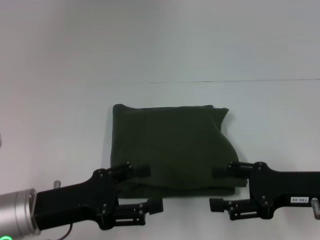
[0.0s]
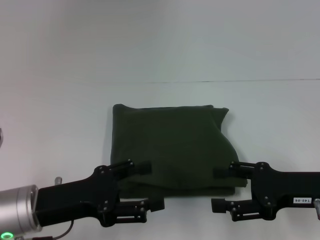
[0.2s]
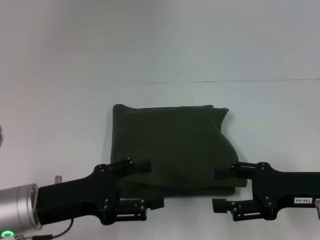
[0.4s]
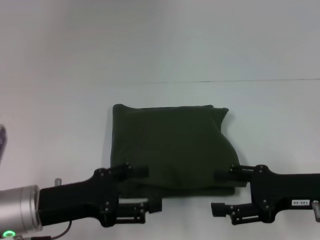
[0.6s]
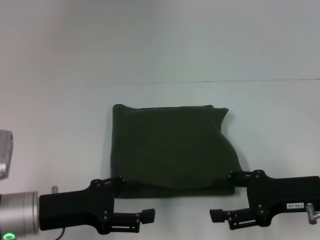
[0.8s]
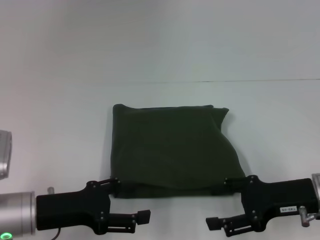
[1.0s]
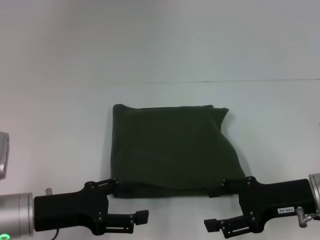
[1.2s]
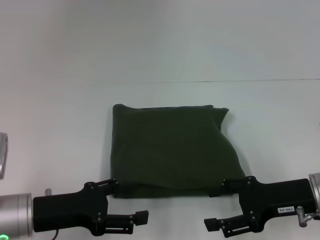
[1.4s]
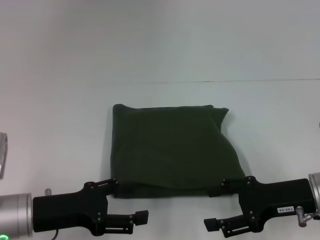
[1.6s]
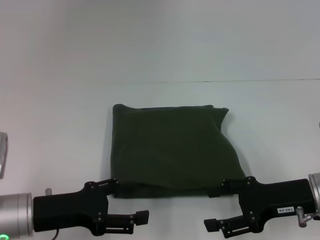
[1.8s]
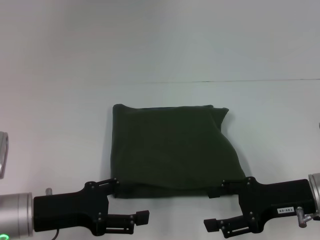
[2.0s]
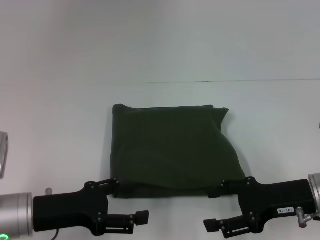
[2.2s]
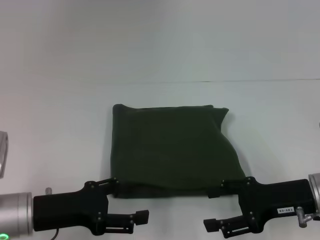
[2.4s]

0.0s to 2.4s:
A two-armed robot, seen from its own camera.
0.0s to 1.2s: There are only small adjustments of the grippers.
1.2s to 2.4s: The two grippers keep their place.

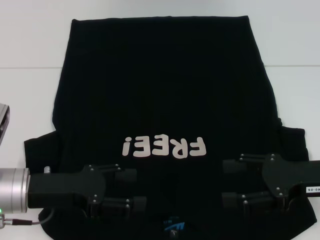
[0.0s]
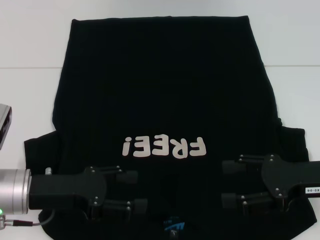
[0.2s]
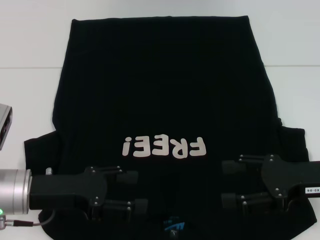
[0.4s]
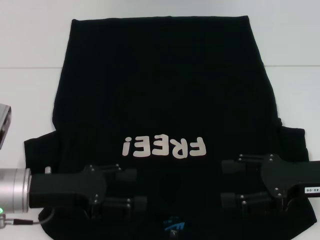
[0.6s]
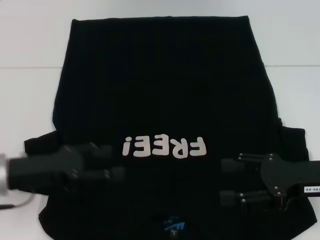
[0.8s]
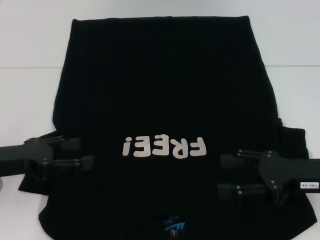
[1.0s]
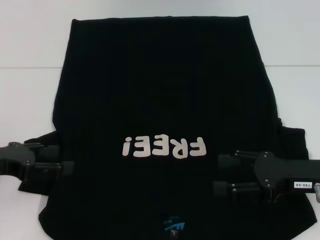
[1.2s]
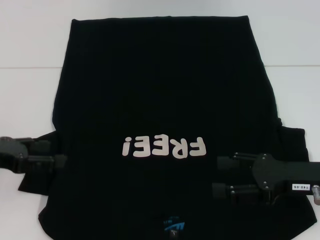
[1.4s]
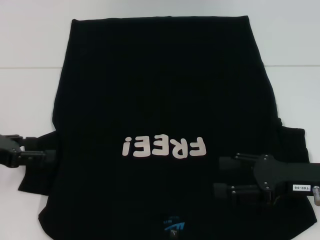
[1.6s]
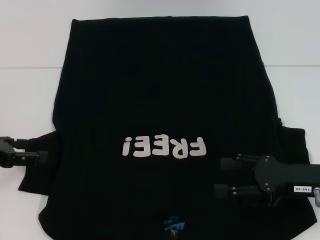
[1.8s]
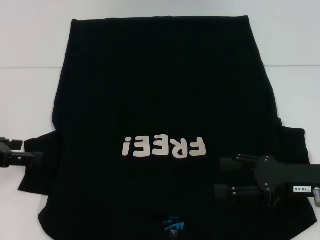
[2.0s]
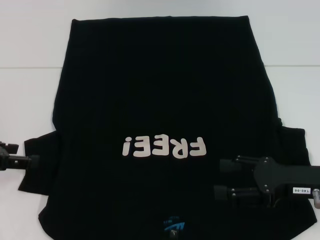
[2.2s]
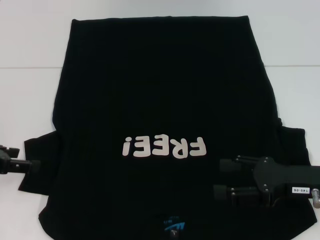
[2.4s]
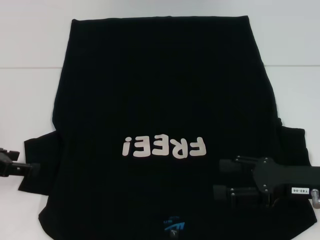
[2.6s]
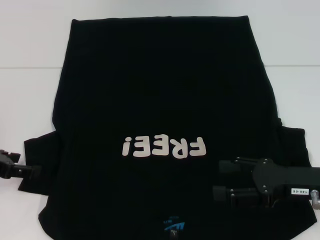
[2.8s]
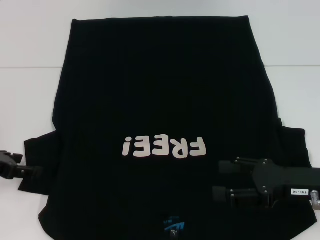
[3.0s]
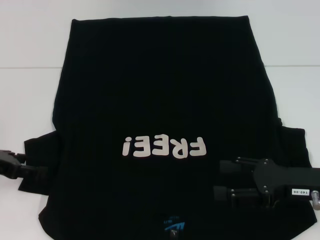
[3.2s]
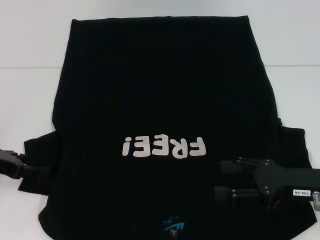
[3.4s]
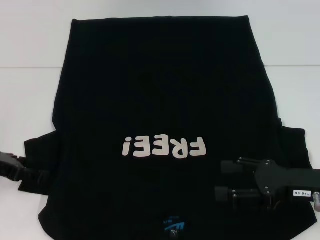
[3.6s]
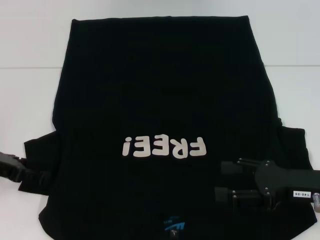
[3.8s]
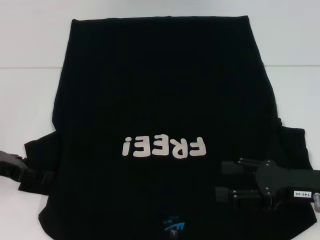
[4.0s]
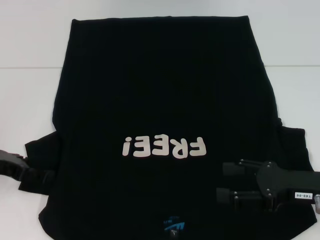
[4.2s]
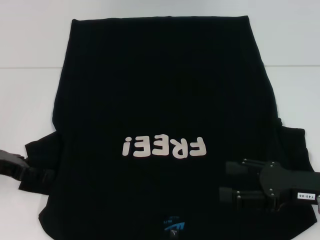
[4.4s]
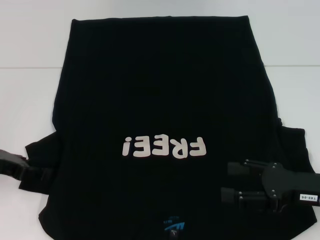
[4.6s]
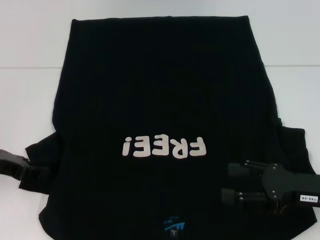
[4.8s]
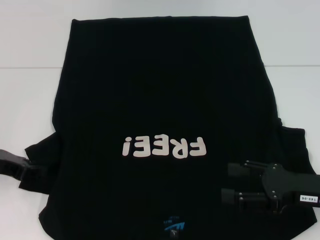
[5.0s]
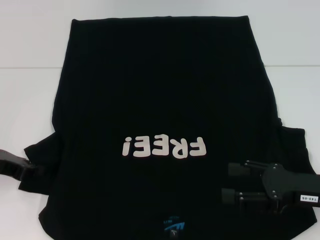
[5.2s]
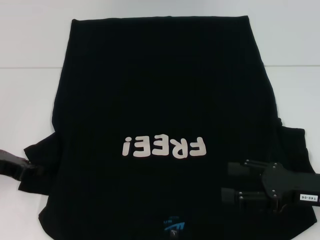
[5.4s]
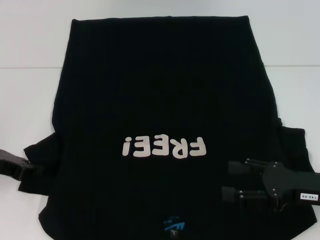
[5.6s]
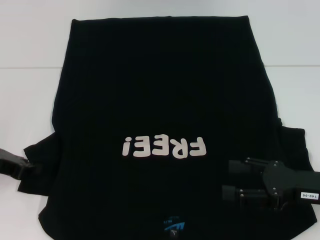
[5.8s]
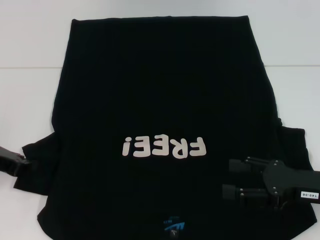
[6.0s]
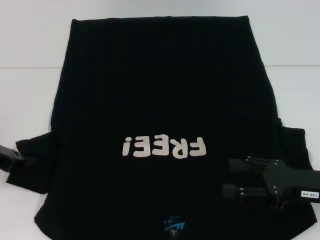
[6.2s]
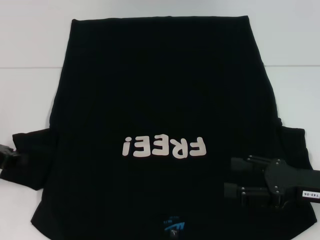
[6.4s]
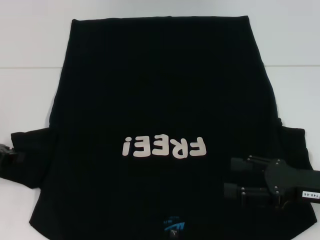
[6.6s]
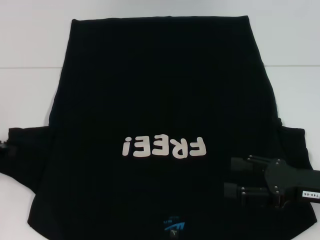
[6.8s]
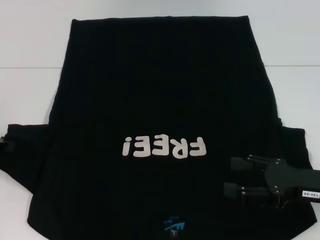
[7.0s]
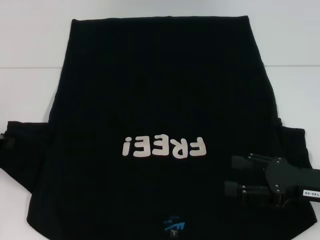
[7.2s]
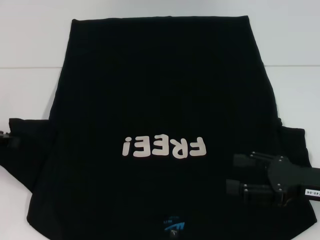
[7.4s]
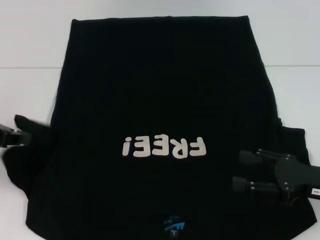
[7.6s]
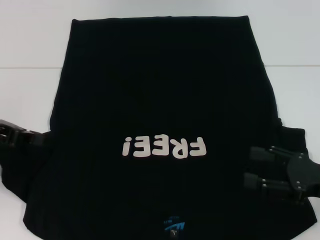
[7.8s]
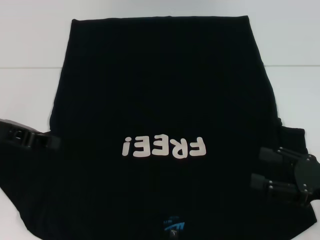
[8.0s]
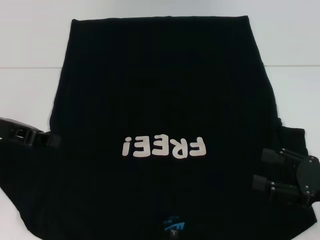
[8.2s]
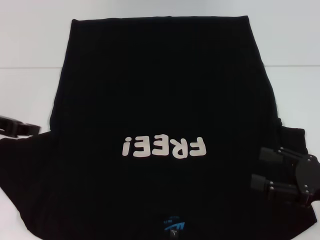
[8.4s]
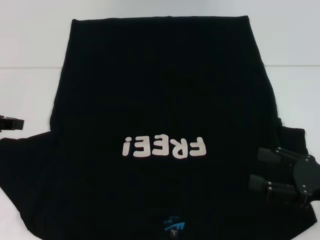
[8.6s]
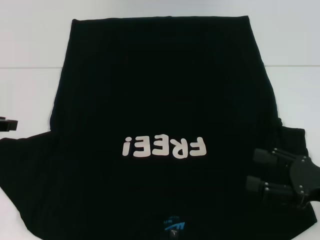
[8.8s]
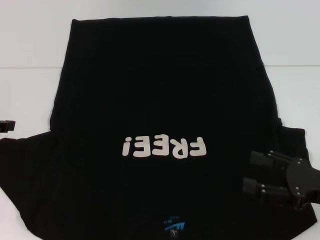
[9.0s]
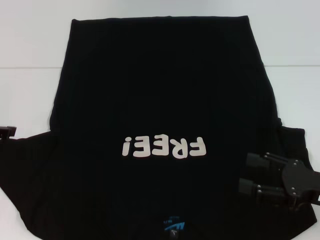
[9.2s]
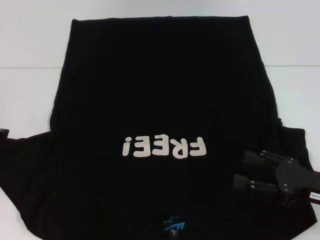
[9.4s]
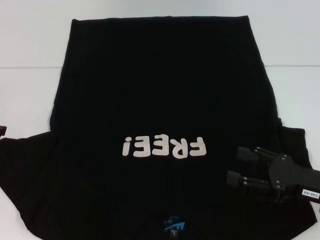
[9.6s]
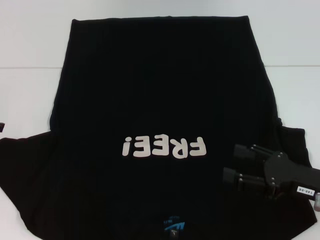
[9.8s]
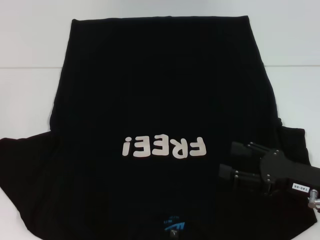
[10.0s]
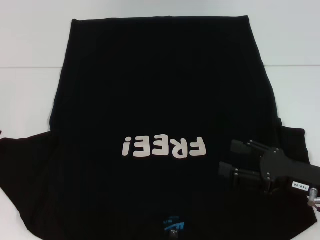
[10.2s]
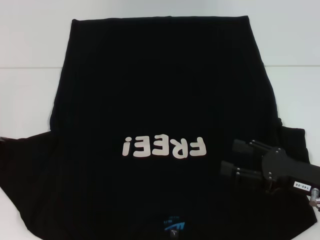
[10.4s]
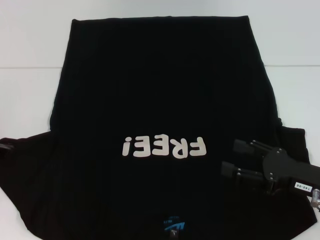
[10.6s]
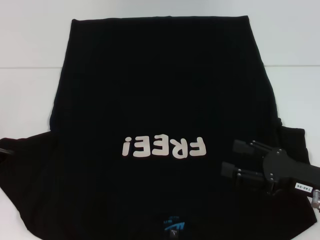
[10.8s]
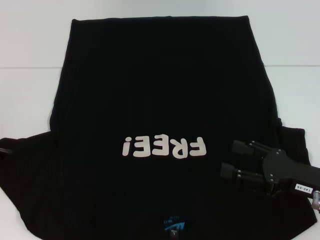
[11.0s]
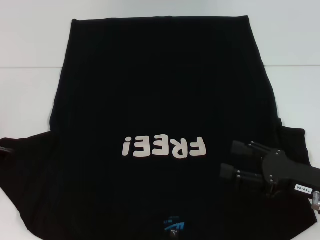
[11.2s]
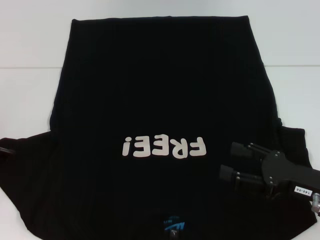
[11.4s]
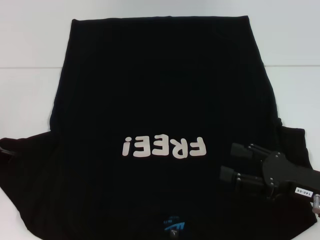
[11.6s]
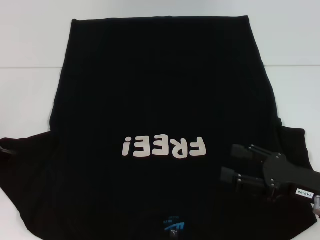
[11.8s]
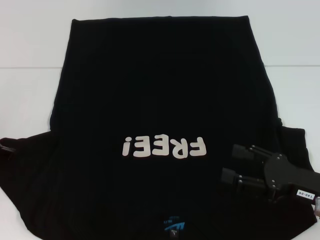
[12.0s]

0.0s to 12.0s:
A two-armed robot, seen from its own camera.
0.0s to 1.6s: The left gripper shifts some 10 cm to the left.
1.6s to 4.4s: The grippers move only a little.
4.4s to 6.0s: The left gripper closes.
6.0s to 7.6s: The left gripper heads upward, covering about 10 cm.
7.6s to 9.0s: The grippers move only a little.
10.4s to 12.0s: There are only small adjustments of the grippers.

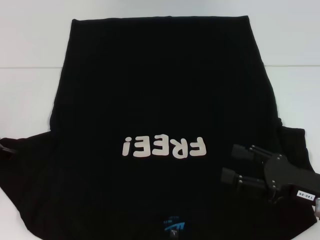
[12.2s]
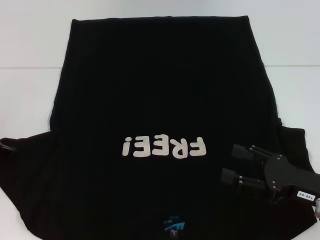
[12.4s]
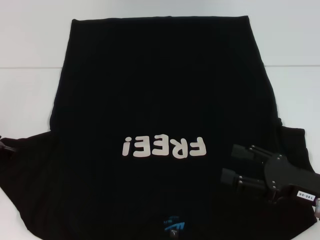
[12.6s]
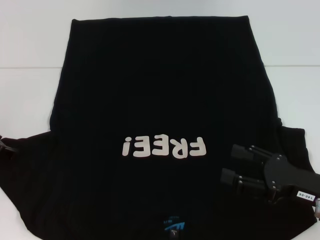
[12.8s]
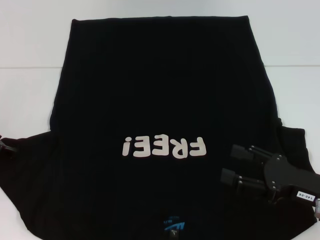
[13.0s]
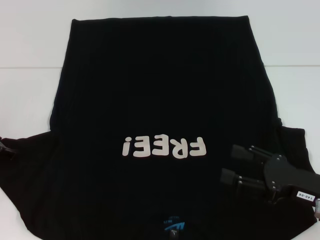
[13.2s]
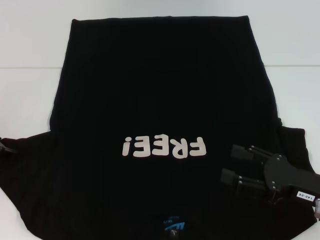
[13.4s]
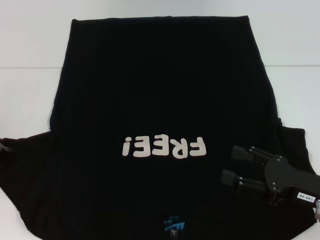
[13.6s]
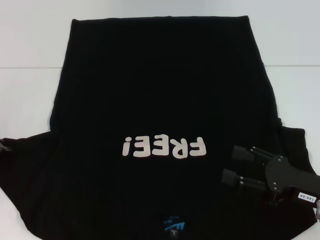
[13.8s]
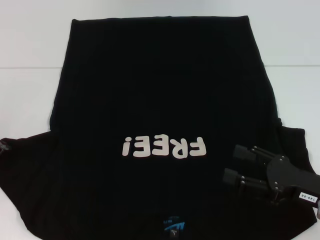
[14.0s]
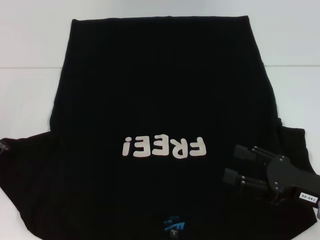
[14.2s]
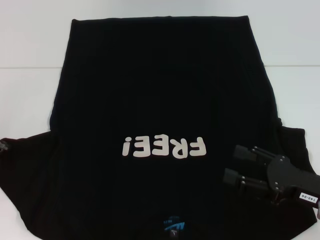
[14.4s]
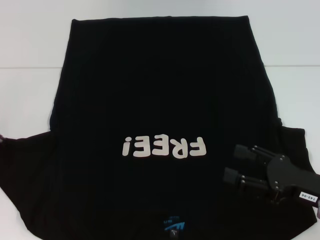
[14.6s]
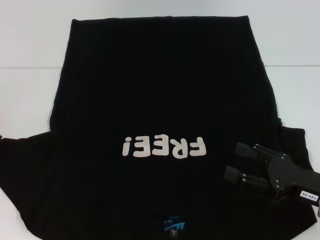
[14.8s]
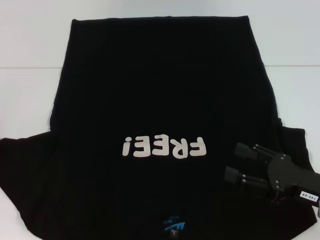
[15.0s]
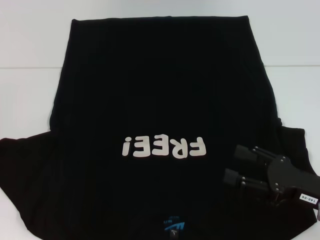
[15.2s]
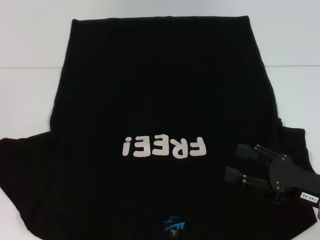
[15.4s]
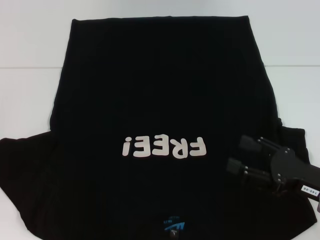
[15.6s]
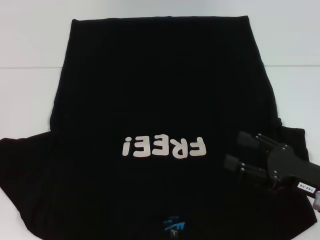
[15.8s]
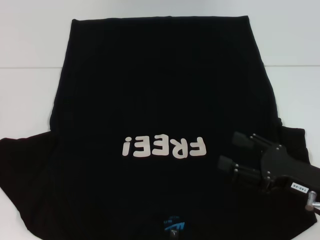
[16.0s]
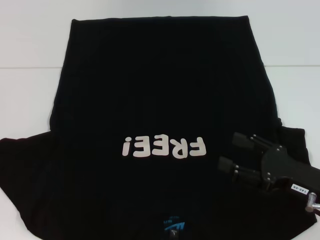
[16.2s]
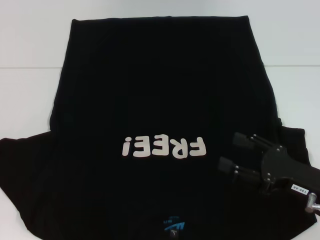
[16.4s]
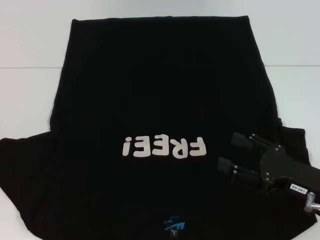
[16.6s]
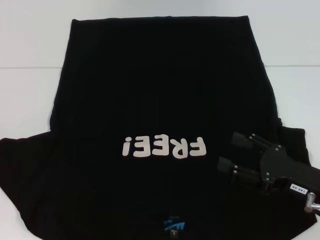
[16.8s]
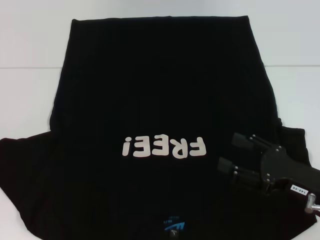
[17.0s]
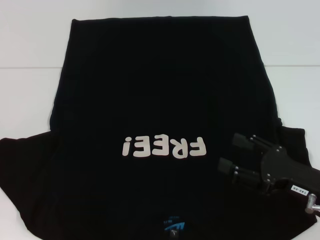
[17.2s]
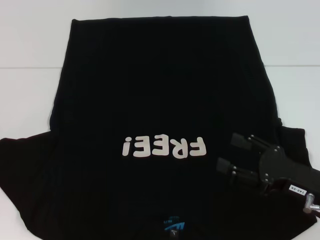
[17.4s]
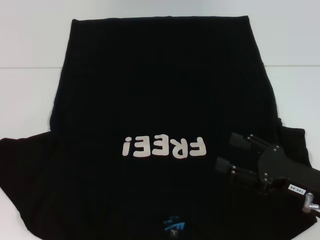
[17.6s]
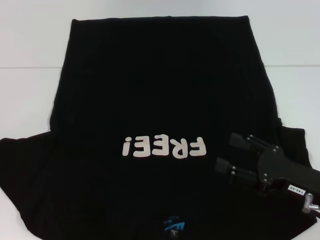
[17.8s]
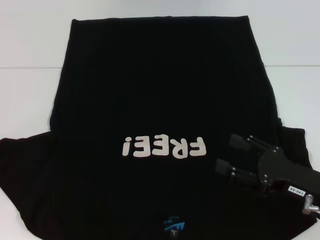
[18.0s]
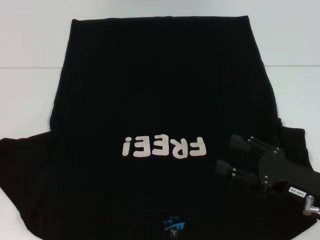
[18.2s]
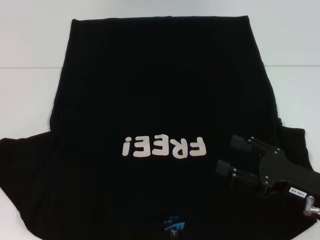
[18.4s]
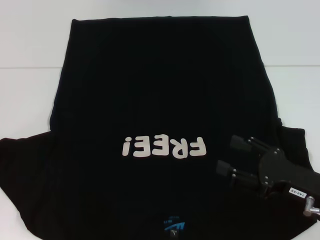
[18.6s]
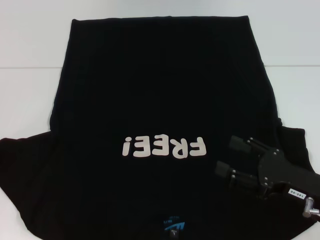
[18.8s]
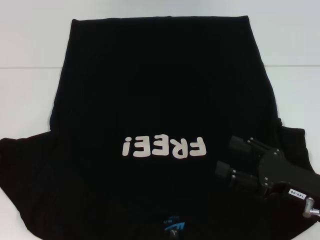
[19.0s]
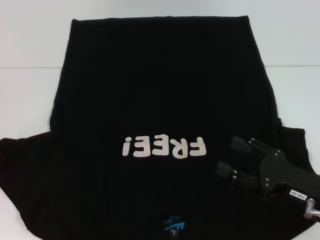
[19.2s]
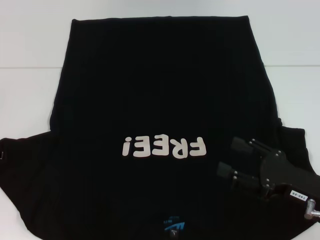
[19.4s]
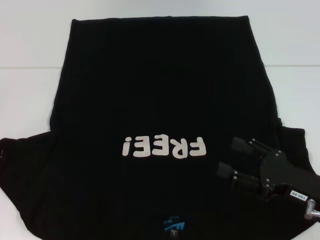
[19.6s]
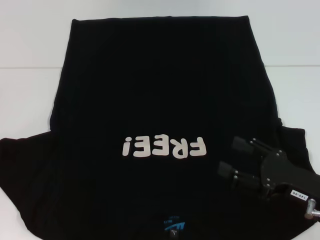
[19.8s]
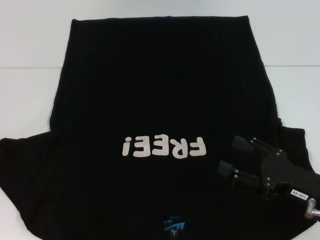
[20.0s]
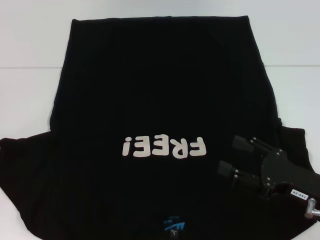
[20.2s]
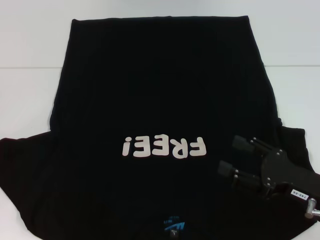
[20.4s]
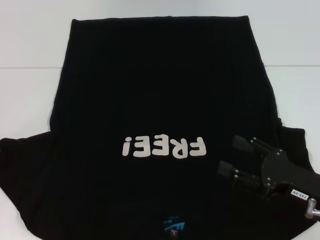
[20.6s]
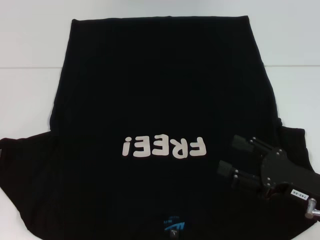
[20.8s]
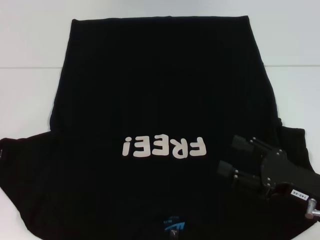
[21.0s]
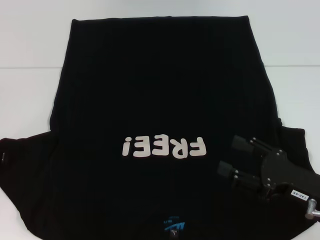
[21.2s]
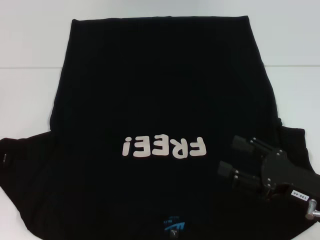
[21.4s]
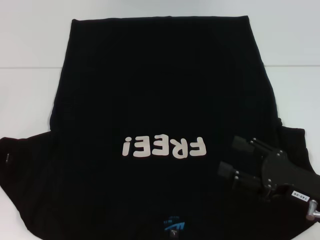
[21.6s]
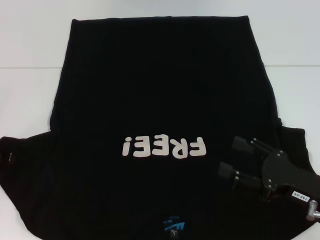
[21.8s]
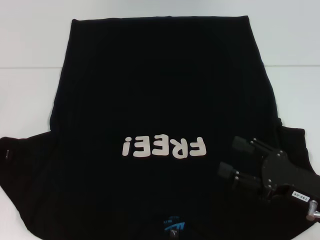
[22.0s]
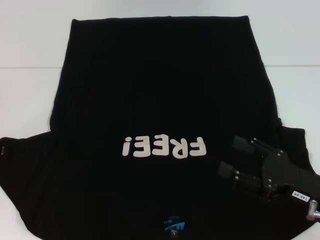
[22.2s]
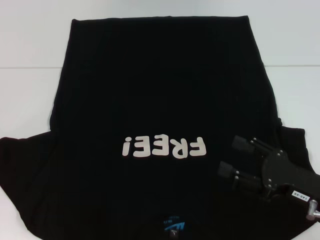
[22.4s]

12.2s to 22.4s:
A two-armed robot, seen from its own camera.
12.2s to 13.6s: Both grippers stay put.
21.0s to 22.4s: Neither gripper changes place.
